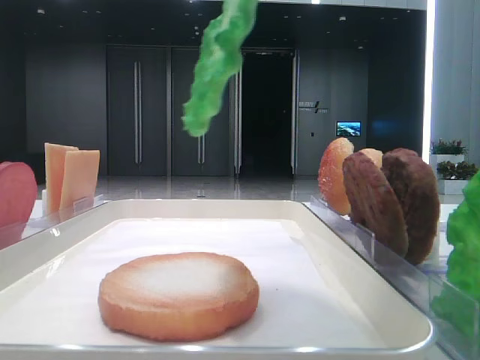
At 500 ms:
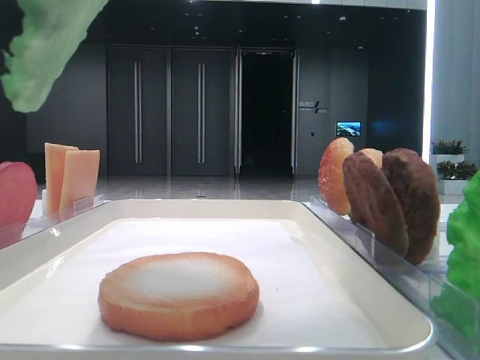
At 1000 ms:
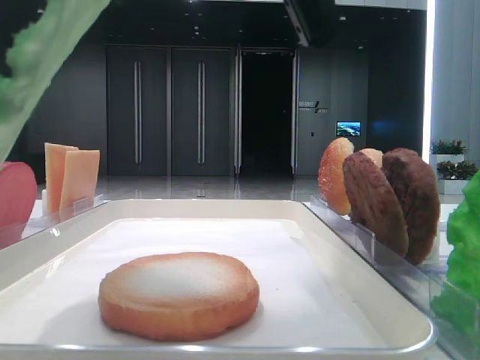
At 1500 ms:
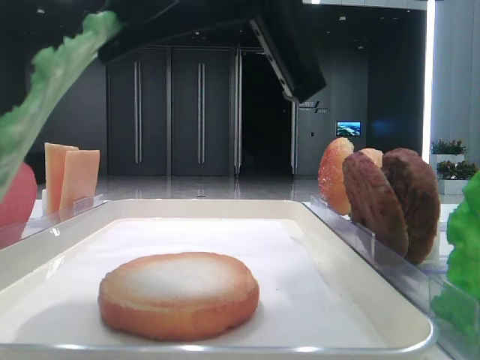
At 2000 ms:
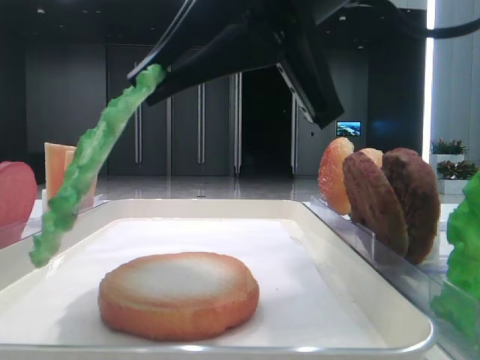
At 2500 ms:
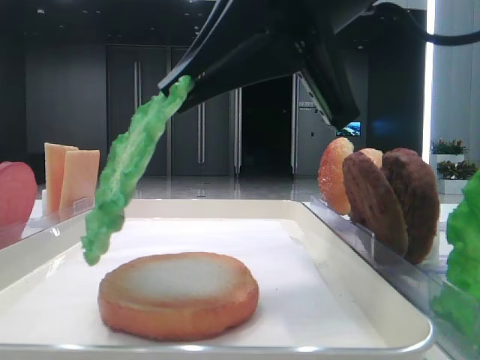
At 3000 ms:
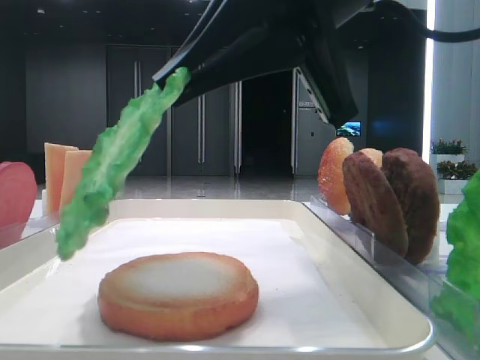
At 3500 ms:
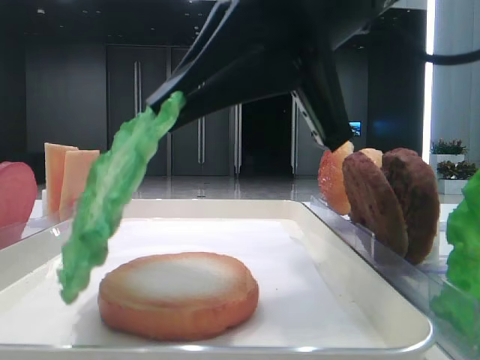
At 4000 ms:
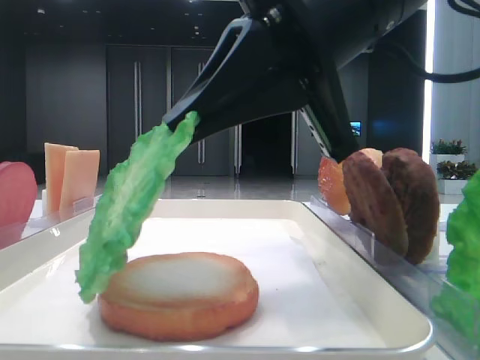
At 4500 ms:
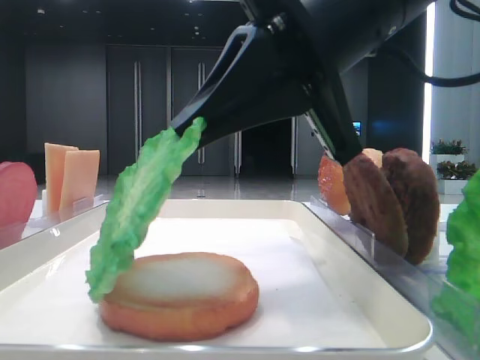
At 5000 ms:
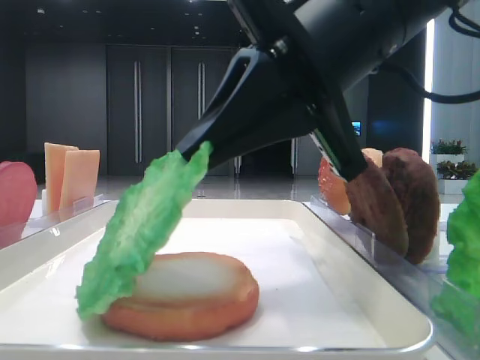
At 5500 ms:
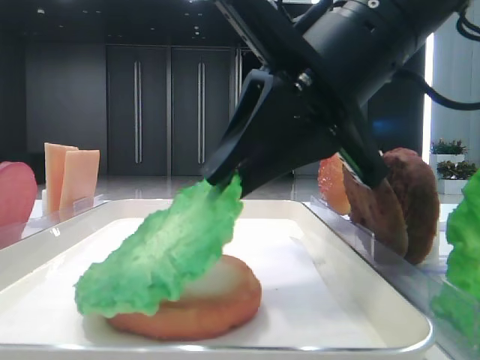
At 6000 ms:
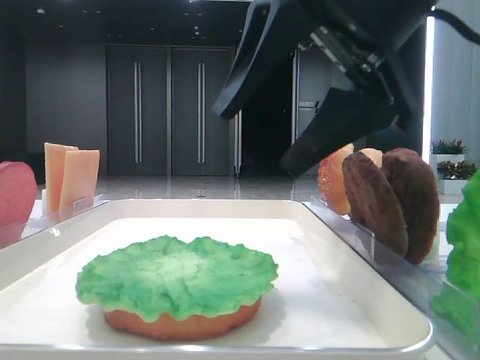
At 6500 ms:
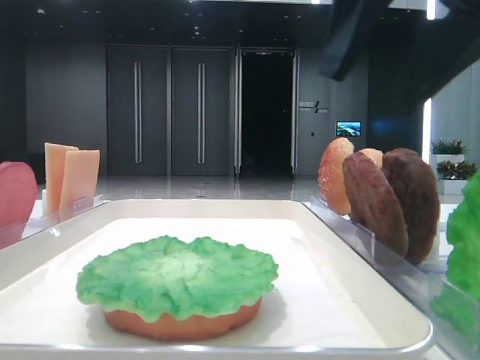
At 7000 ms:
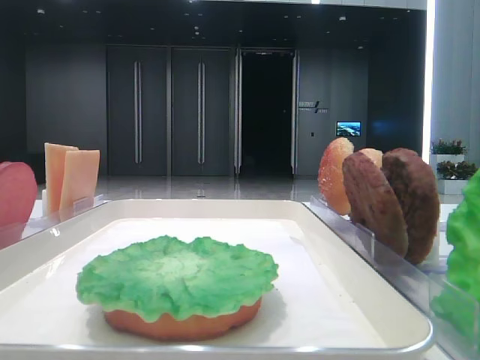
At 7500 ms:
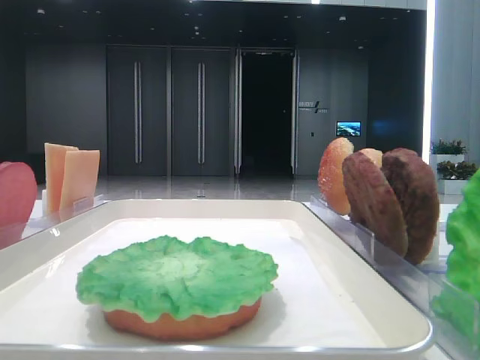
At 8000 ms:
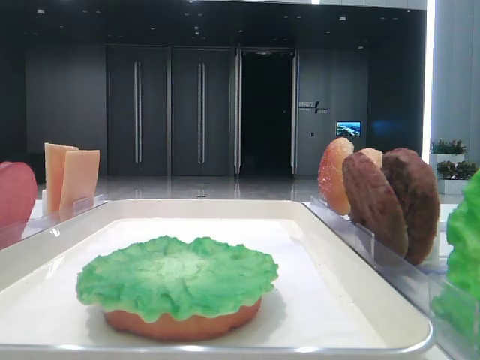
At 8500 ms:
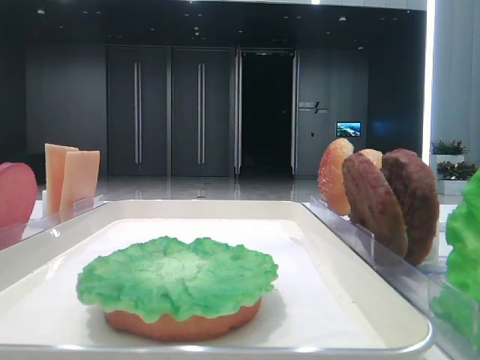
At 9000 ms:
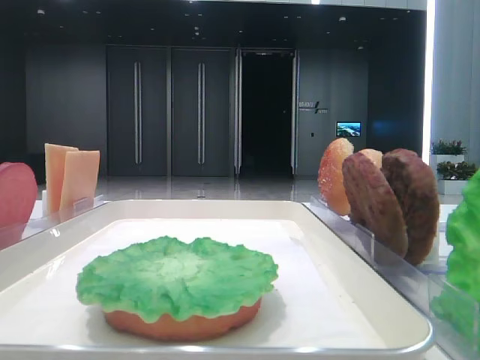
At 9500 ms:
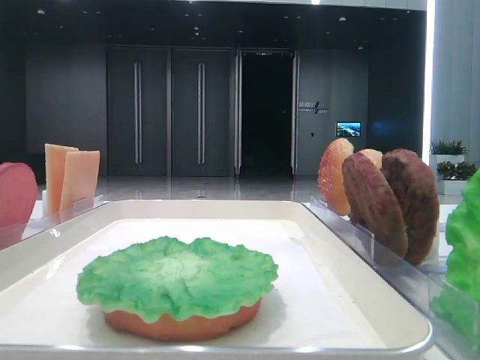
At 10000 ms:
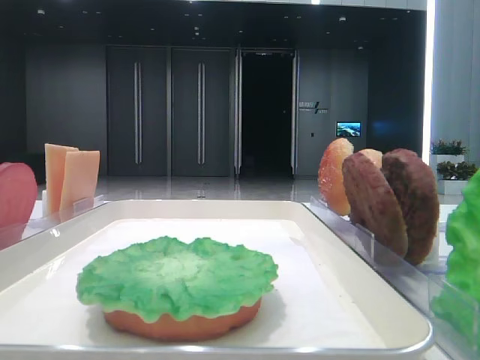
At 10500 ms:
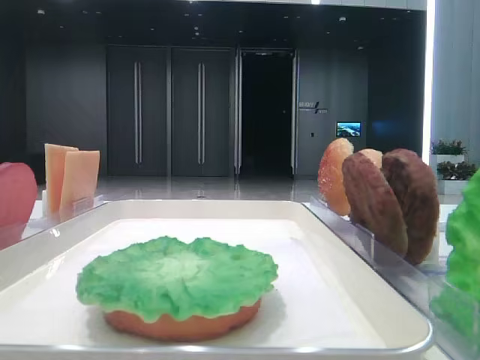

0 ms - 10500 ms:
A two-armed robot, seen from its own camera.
Step, 0 ms - 5500 ms: Place the lettuce leaf on the bottom bread with the right hand.
0 ms - 2000 ms: The right gripper is displaced downward, forward and to the left by about 10 cm.
2000 ms - 4000 ms: The grippers move only a little.
4000 ms - 6500 ms: The right gripper goes approximately 10 cm to the right and upward, and opens.
6500 ms - 8500 ms: The right gripper goes some 25 cm backward and to the right.

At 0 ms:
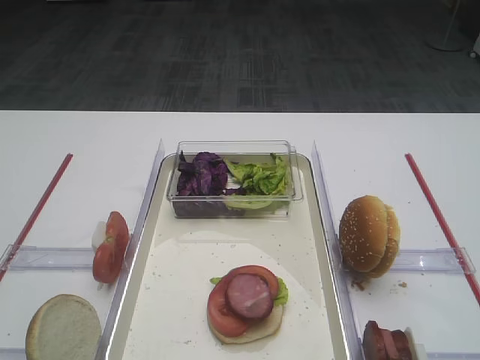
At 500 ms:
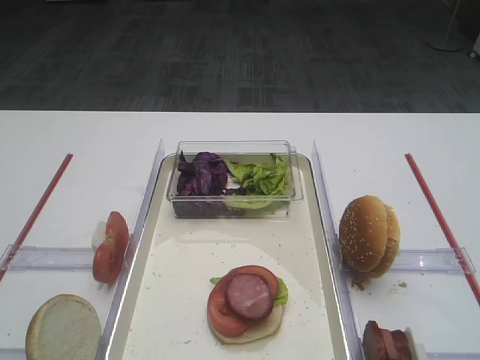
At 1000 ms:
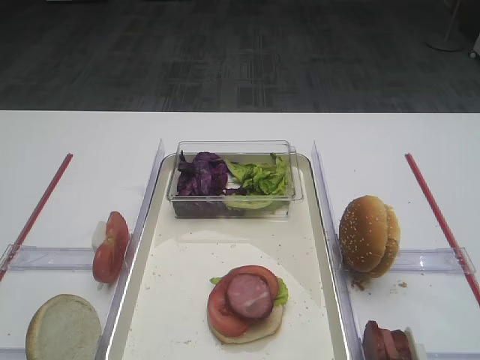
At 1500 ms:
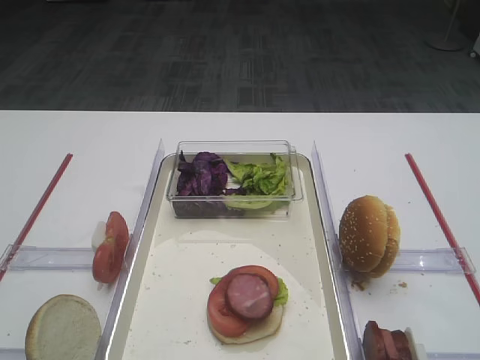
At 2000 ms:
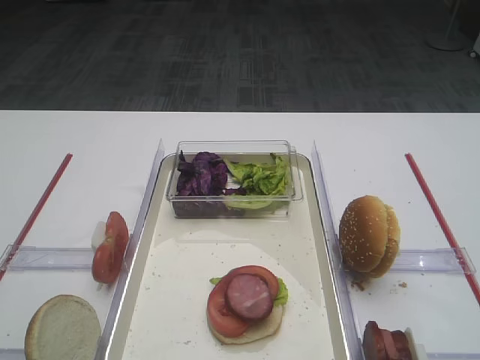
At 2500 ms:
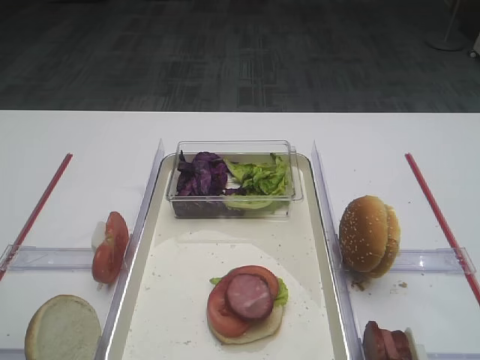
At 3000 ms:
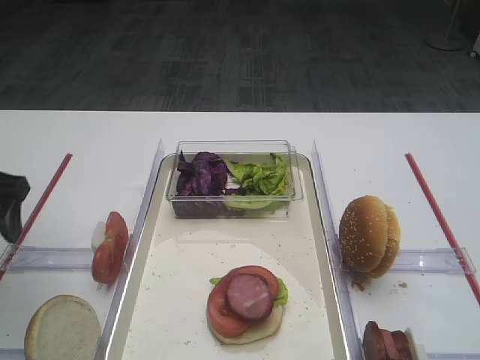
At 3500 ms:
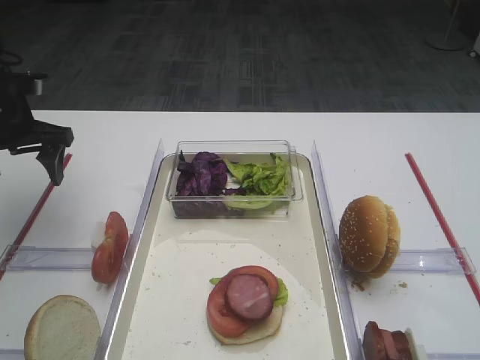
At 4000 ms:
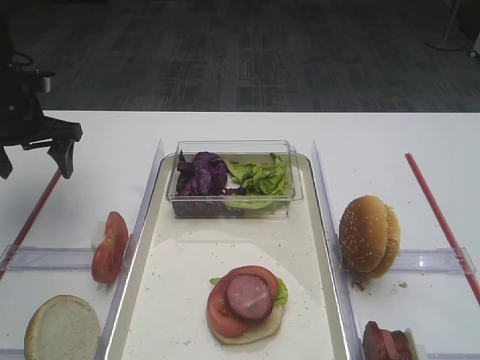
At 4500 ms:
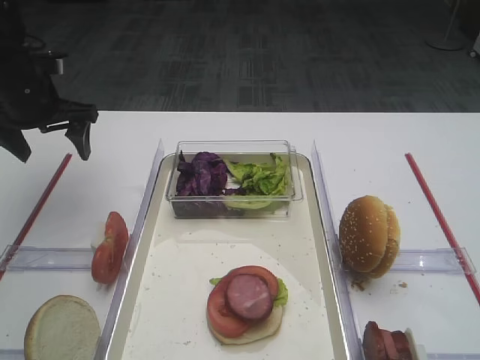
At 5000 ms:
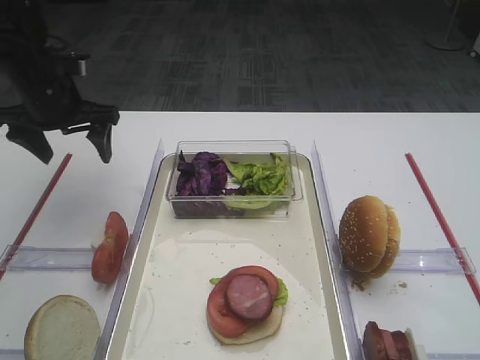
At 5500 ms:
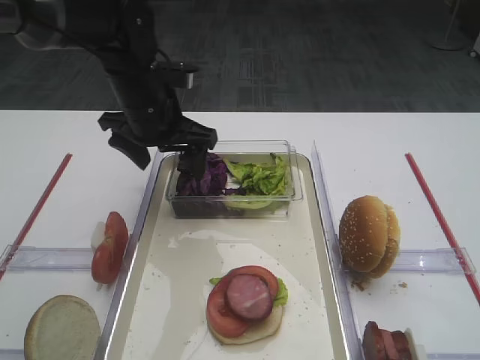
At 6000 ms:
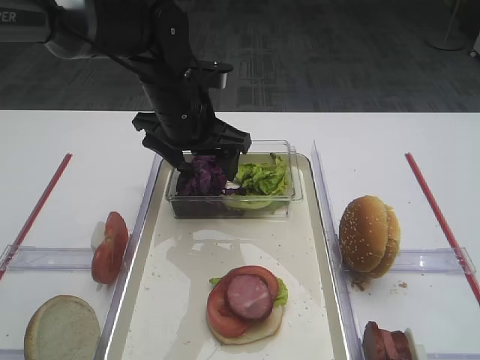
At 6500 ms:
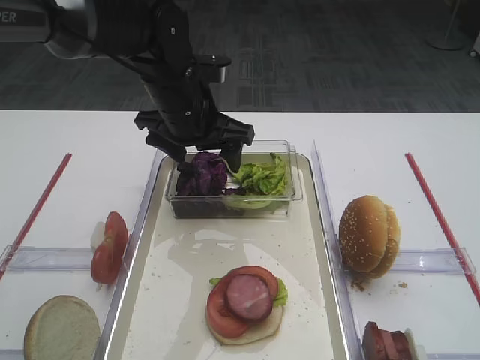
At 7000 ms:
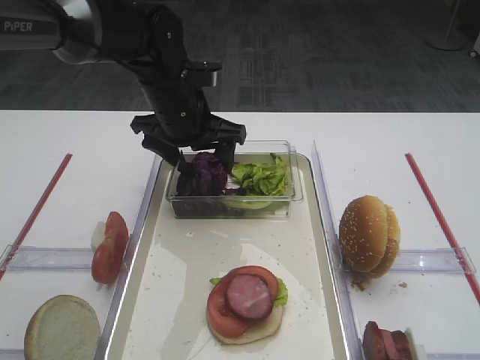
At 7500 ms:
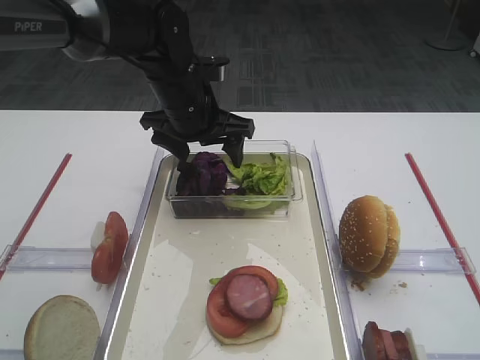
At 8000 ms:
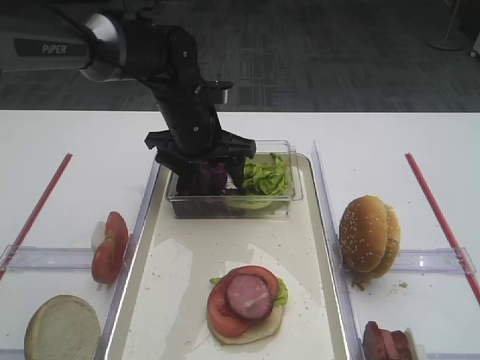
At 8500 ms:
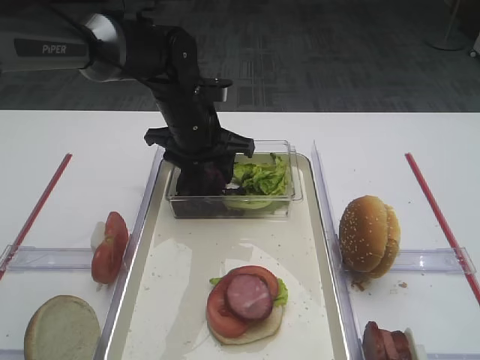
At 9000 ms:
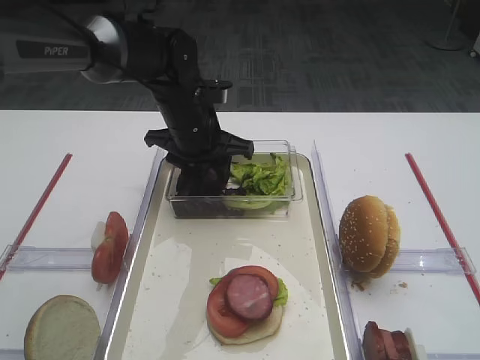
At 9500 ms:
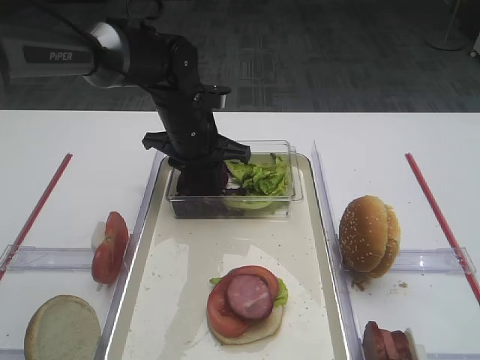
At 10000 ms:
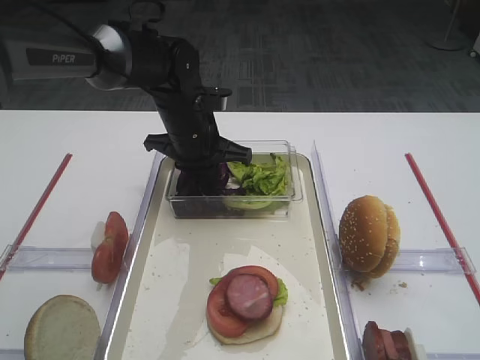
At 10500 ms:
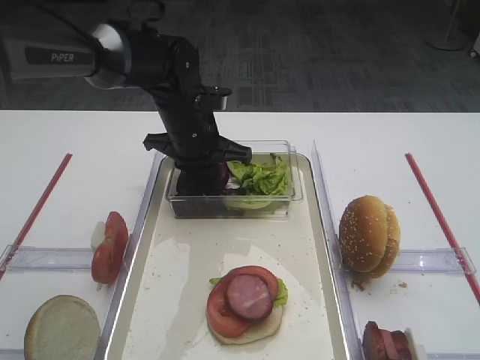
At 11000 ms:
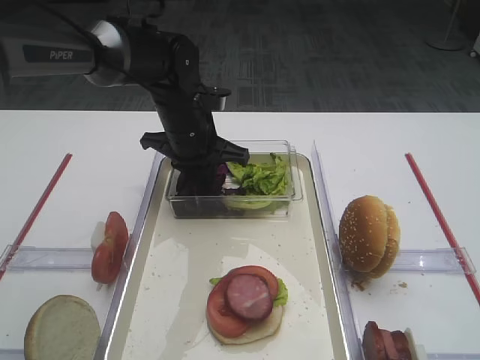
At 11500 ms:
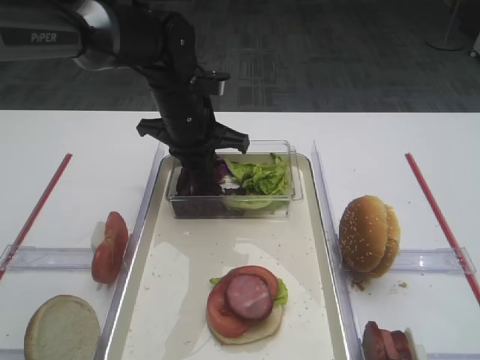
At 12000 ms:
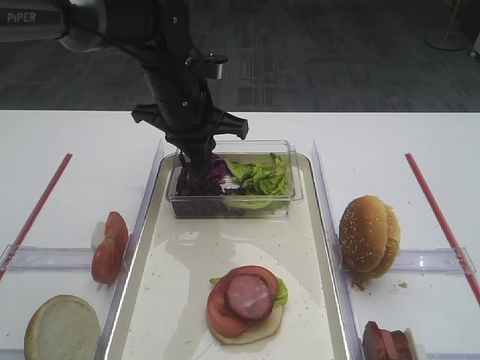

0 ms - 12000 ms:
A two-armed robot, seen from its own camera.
2000 ms - 4000 ms: The left gripper is displaced forward by approximately 30 cm.
4000 ms - 6000 ms: The left gripper moves to the right, roughly 20 cm.
6000 ms - 8000 ms: The left gripper ends up roughly 5 cm from where it was.
8000 ms - 10000 ms: The left gripper closes up.
10000 ms - 12000 ms: The left gripper travels upward by some 5 cm.

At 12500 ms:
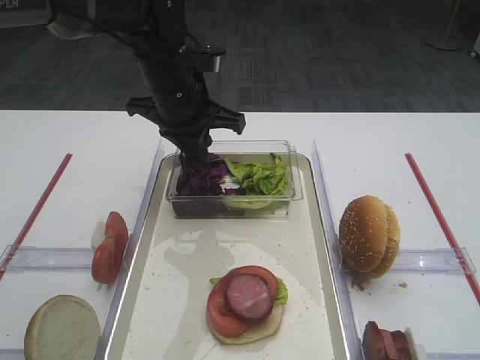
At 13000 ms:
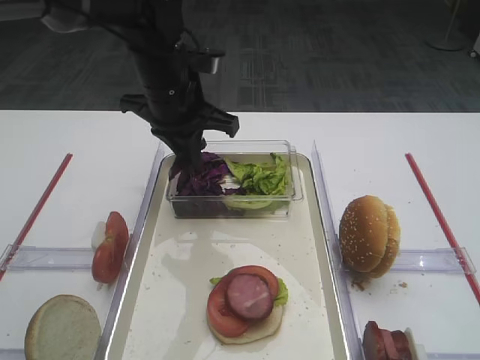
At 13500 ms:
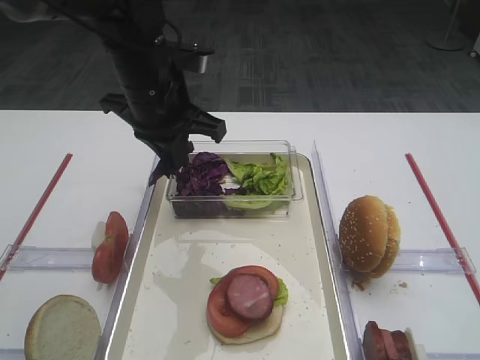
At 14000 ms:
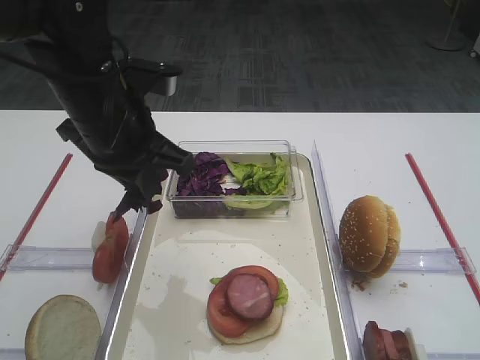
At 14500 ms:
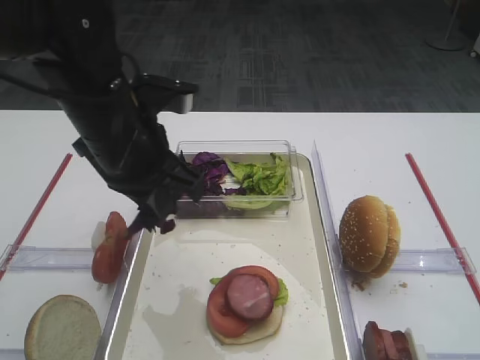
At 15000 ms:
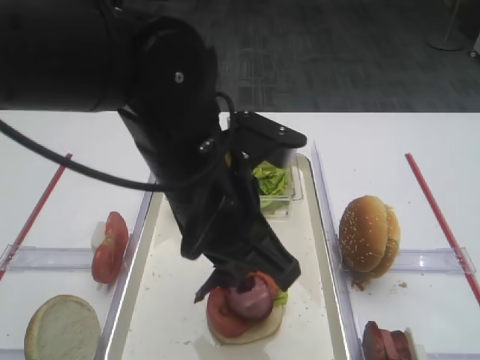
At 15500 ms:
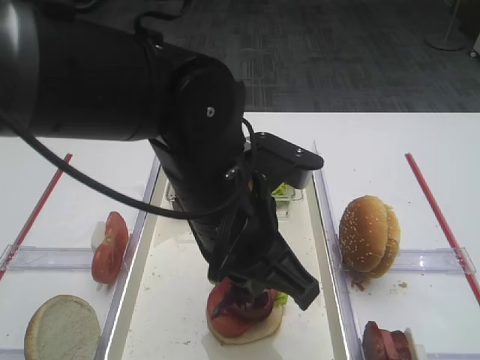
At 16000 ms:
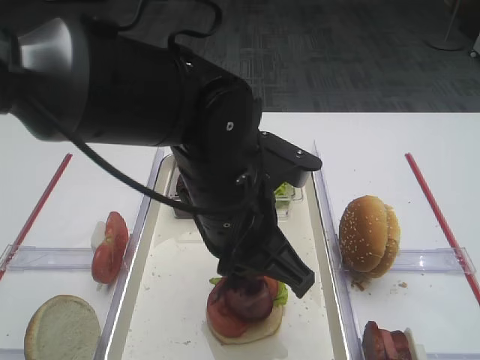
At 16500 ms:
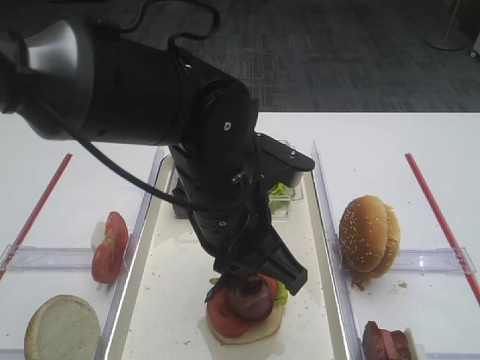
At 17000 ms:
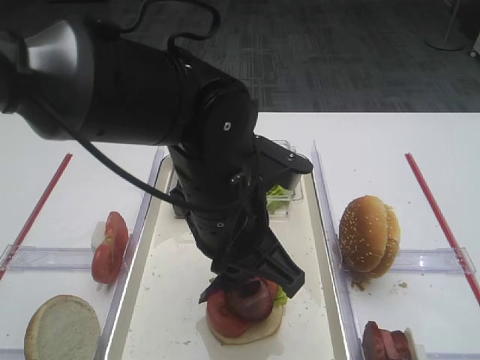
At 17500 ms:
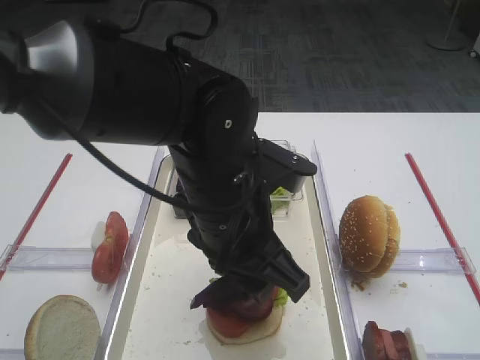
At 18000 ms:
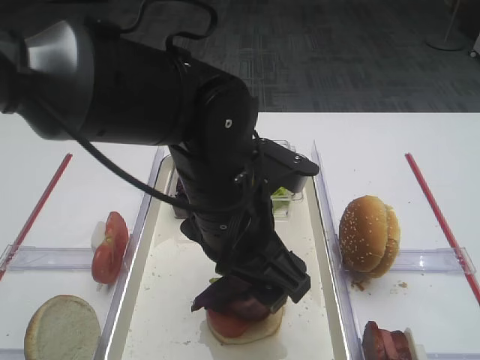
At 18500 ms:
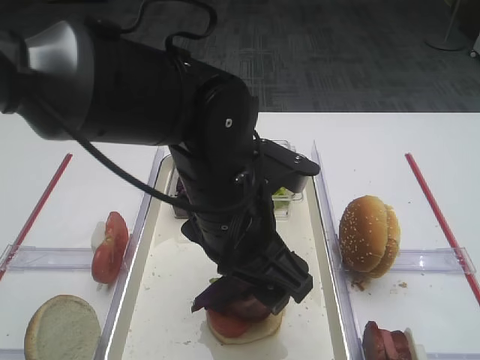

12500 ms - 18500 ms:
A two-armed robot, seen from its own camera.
12500 ms - 14500 ms: The left gripper is displaced backward by about 10 cm.
14500 ms - 16500 ms: The left gripper travels to the right and backward by approximately 10 cm.
16500 ms - 18500 ms: The left gripper opens up.
